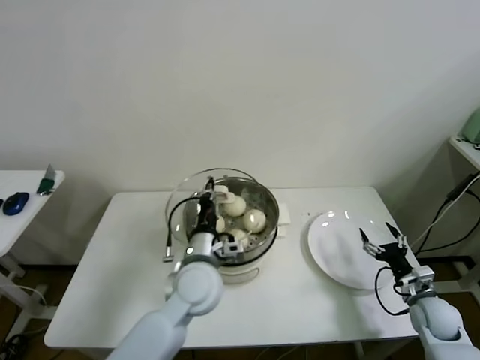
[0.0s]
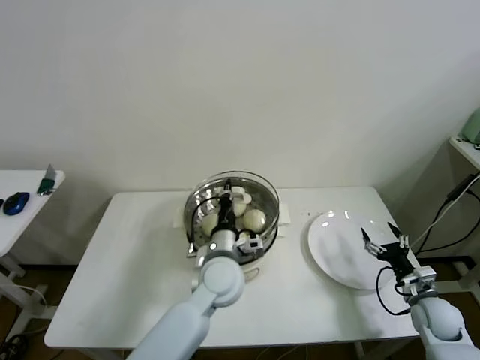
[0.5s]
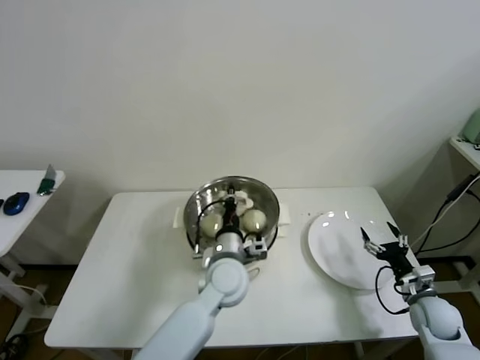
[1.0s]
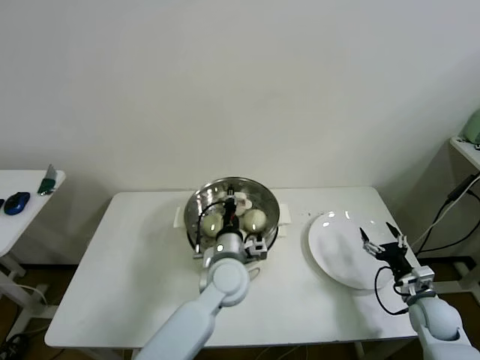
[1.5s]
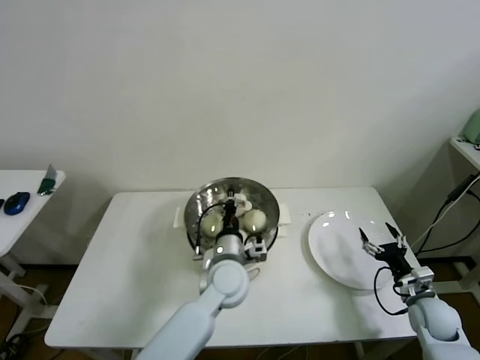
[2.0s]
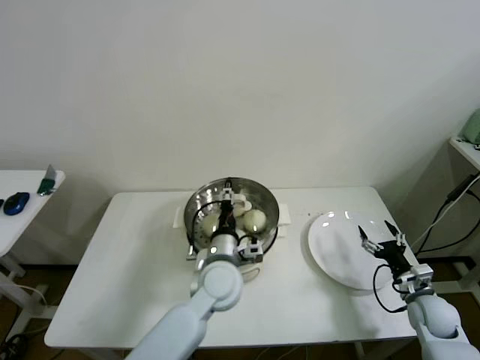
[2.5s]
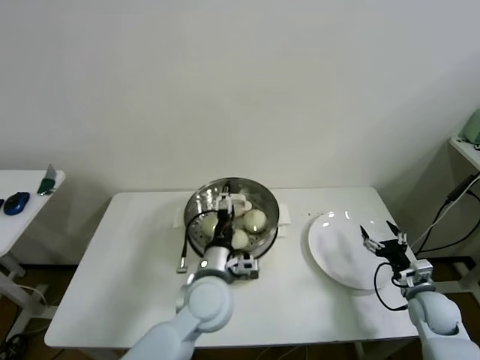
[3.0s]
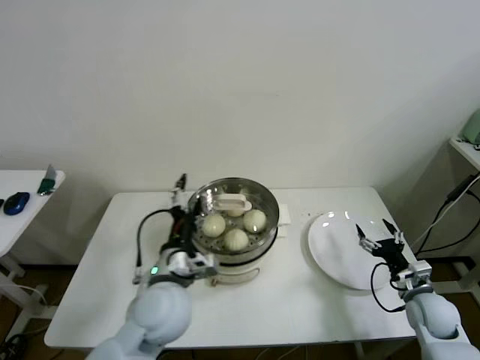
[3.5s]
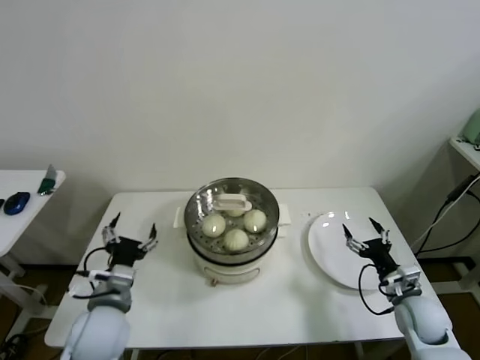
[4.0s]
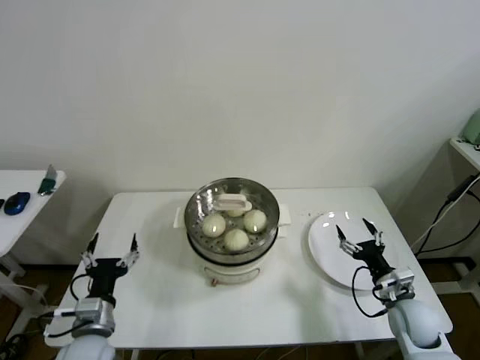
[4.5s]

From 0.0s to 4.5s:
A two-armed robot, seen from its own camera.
Step, from 0.0s to 2.0s: Place the pot lid on the steamer with left gripper.
From 0.0s to 2.0s: The left gripper travels to the right and downward by approximately 10 cm.
From 2.0s to 4.5s: The right gripper shifts about 5 cm to the left; the left gripper heads to the left and backward, covering some 30 cm, and opens its fingers.

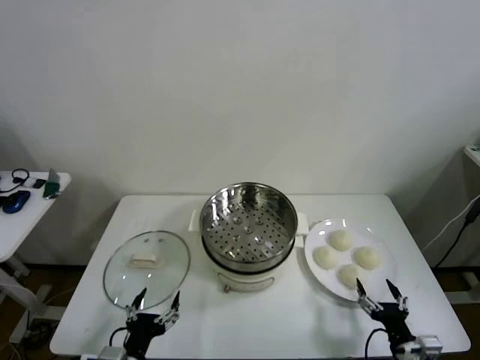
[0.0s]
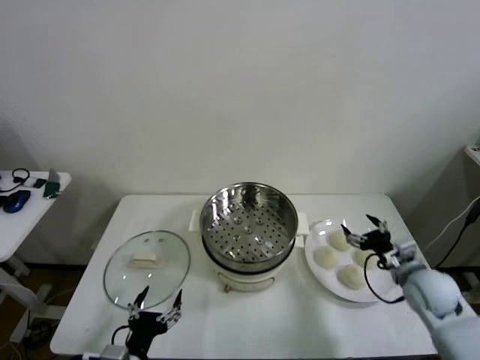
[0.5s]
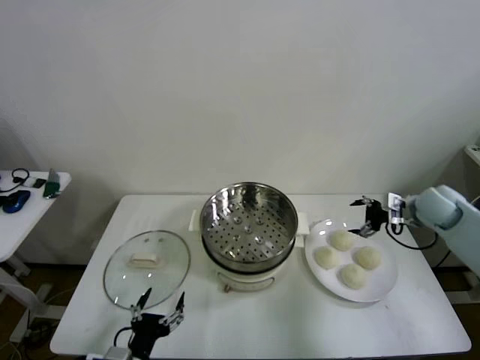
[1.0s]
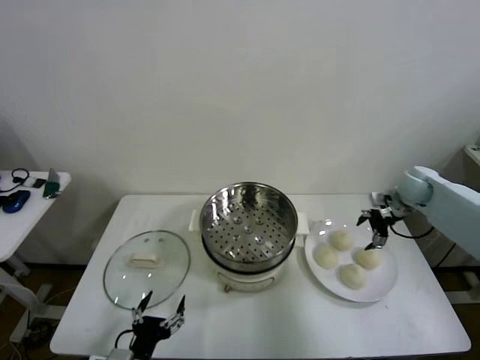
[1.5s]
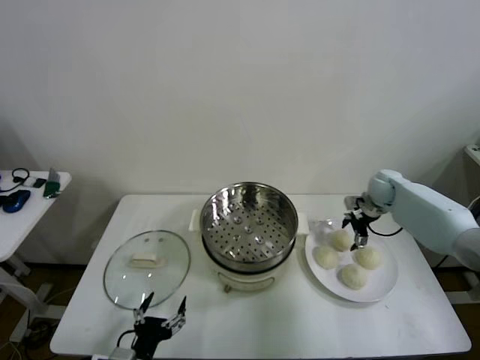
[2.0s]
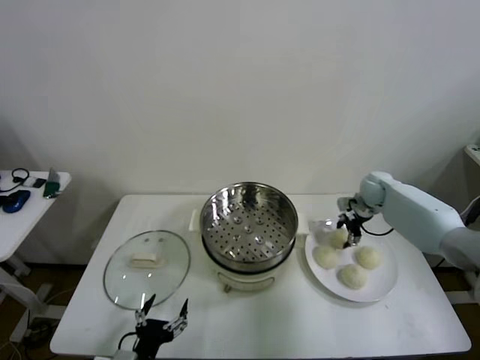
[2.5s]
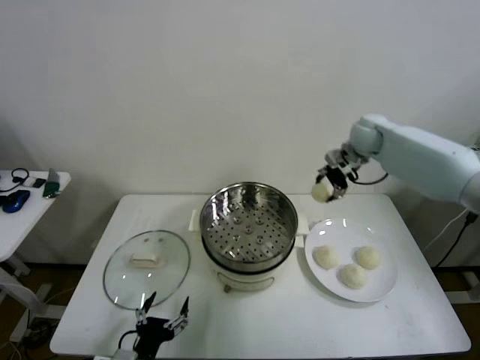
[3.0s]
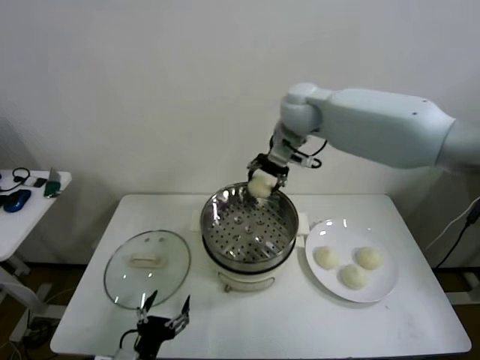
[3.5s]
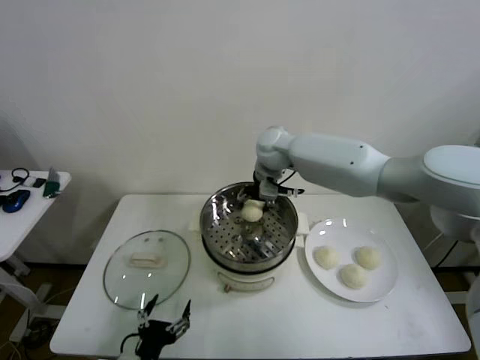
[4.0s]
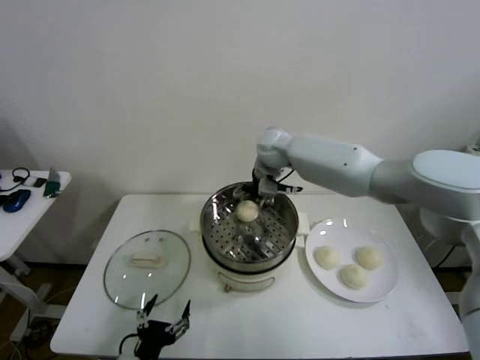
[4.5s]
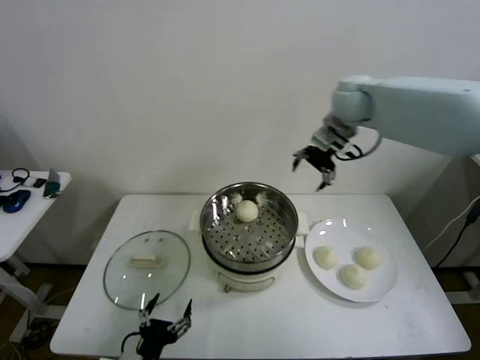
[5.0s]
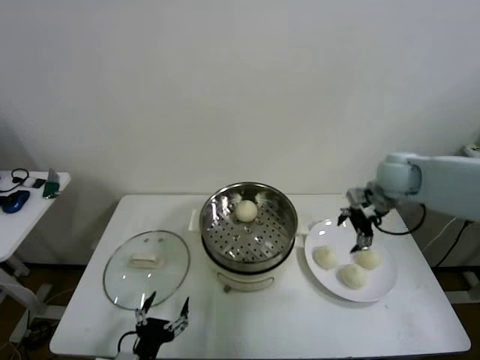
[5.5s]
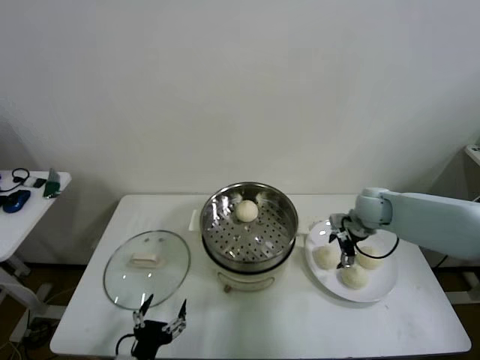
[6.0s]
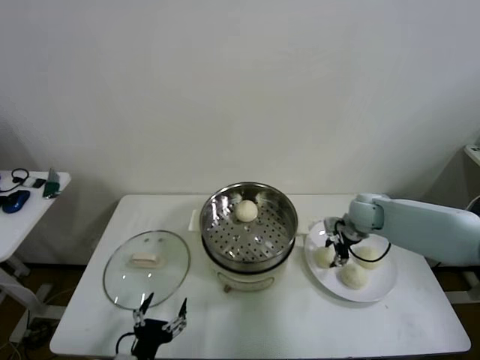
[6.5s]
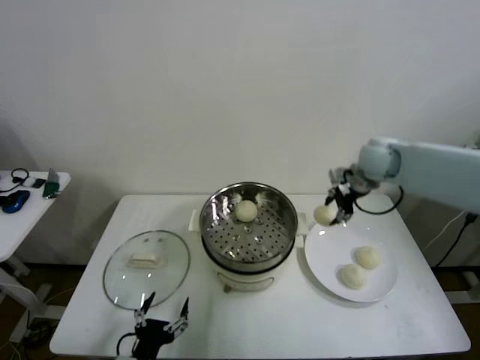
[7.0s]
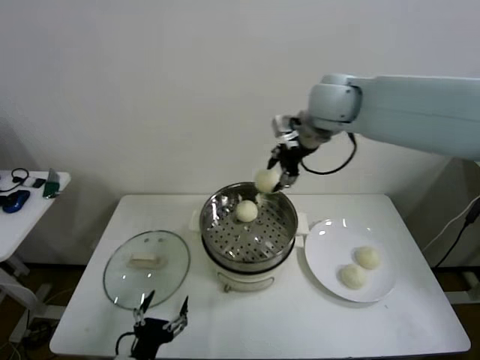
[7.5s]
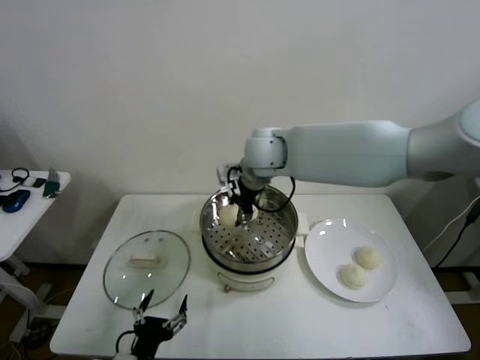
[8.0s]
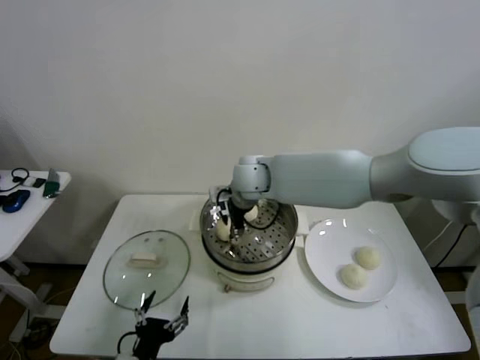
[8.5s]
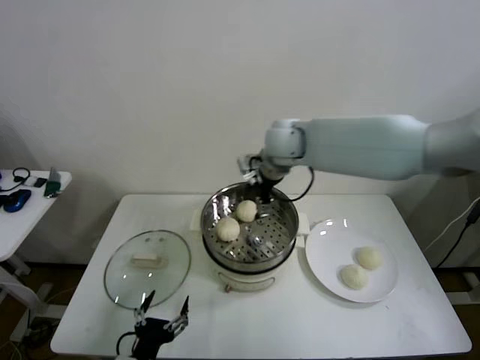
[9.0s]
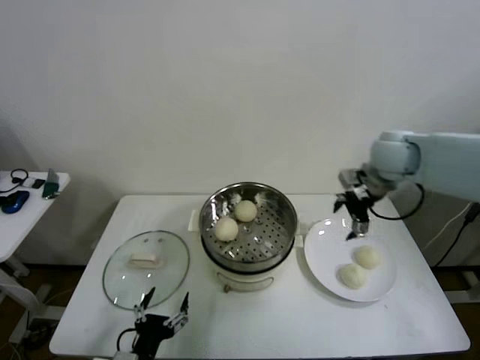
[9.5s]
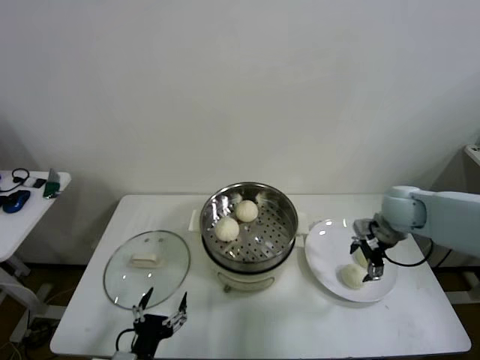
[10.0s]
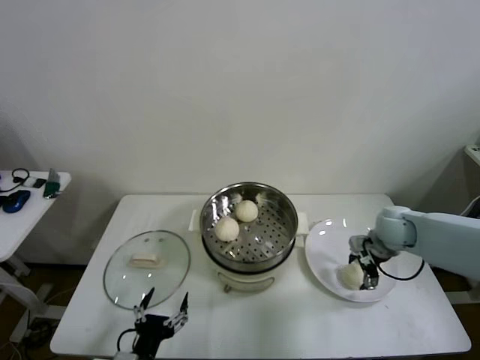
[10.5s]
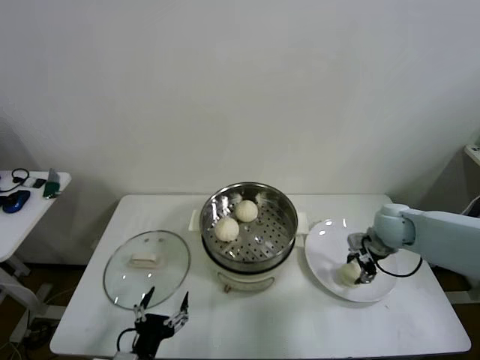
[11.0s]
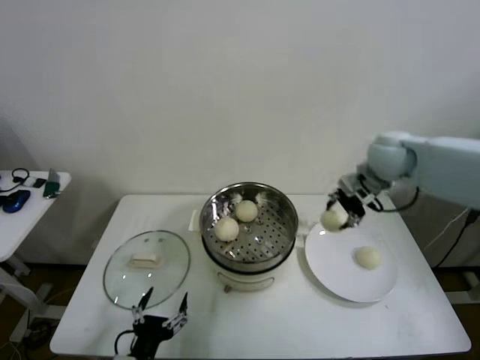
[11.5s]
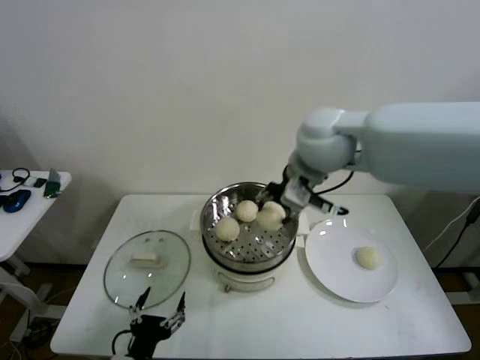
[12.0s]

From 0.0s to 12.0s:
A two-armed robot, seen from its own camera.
Step, from 0.0s to 2.0s: Grasp the baozi in the plate with right gripper.
Step, from 2.5s to 4.0s: Place the baozi on the steamer with right gripper.
Step, from 4.5s to 6.0s: Grasp the baozi in the plate with right gripper.
Step, from 6.5s to 8.5s: Place the baozi on the steamer with right gripper.
Step, from 9.0s to 10.5s: Grasp the baozi in the plate with right gripper.
From 2.0s to 4.0s: The right gripper shifts some 35 cm to the left and upward, and closes up.
From 4.0s to 6.0s: The right gripper moves to the right and downward, roughly 30 cm, and opens.
From 6.0s to 8.0s: The right gripper heads to the left and upward, covering some 35 cm, and closes up.
From 8.0s to 10.0s: The right gripper travels to the right by roughly 30 cm, and opens.
From 10.0s to 12.0s: The right gripper heads to the left and upward, covering approximately 30 cm, and closes up.

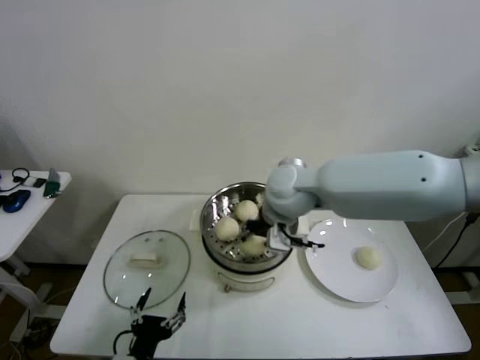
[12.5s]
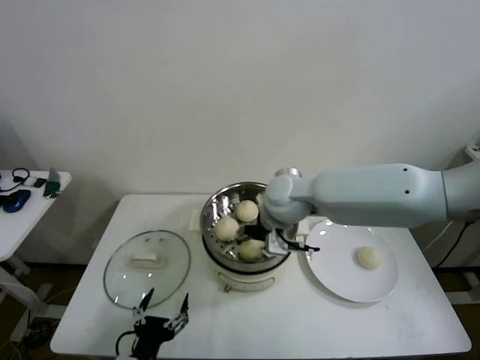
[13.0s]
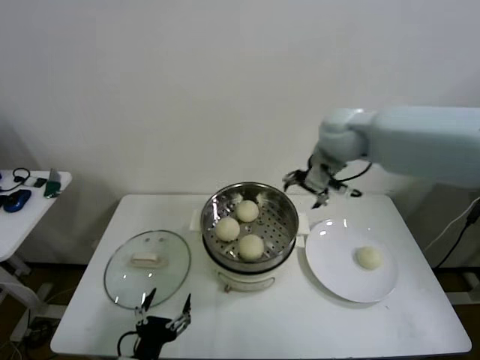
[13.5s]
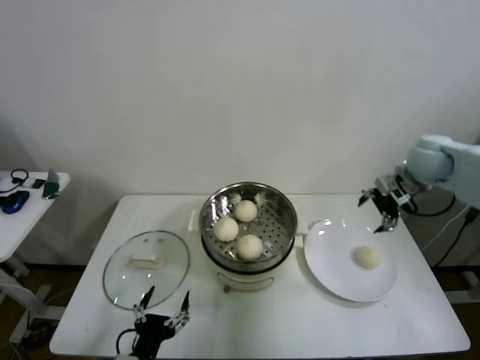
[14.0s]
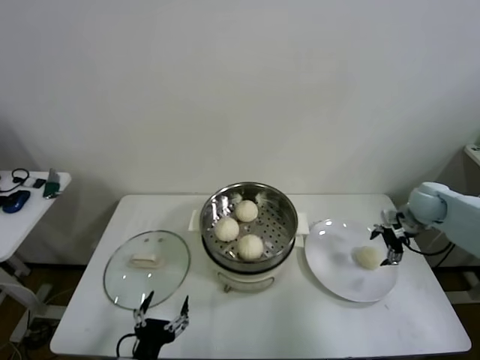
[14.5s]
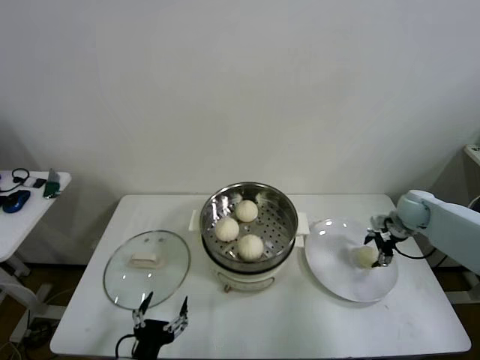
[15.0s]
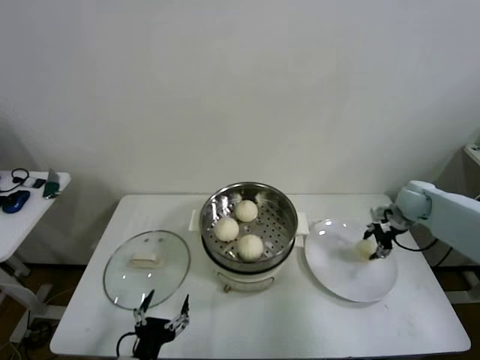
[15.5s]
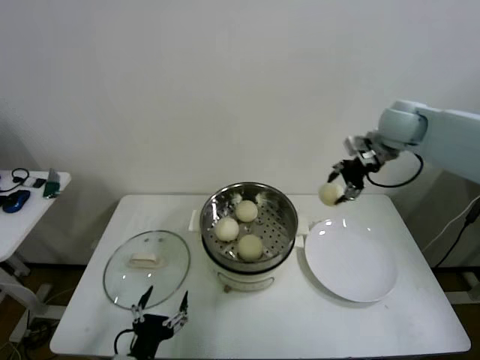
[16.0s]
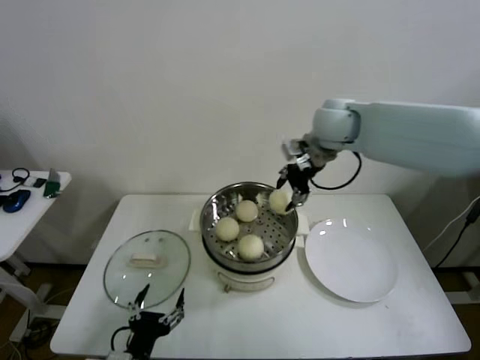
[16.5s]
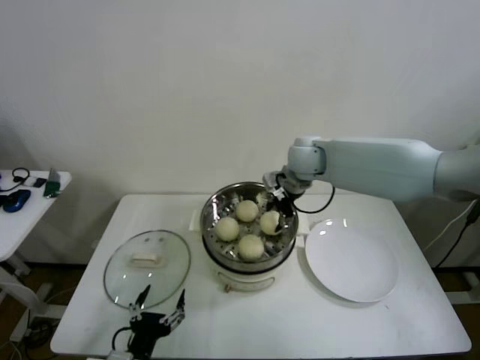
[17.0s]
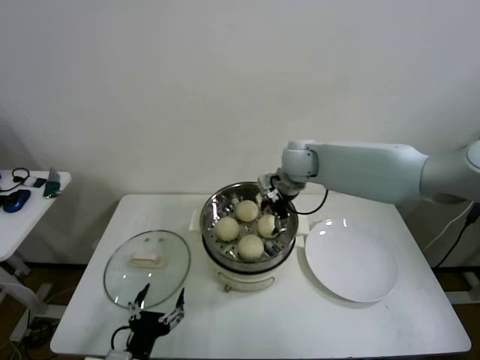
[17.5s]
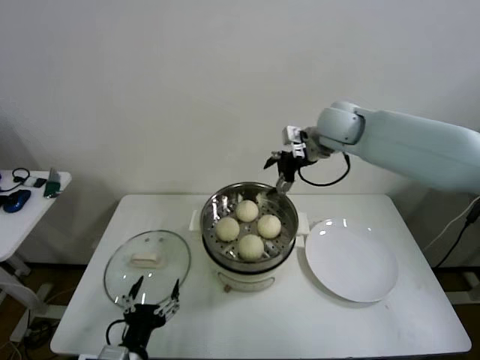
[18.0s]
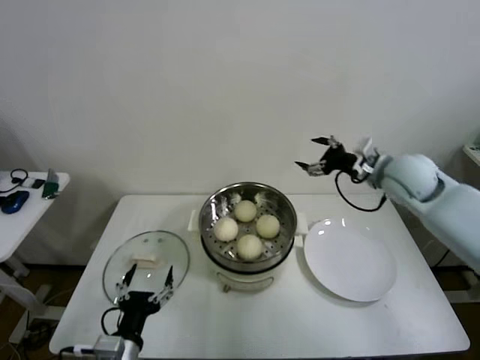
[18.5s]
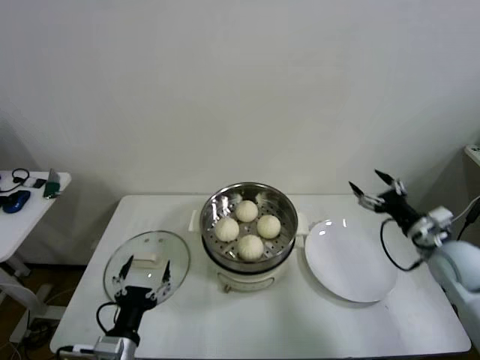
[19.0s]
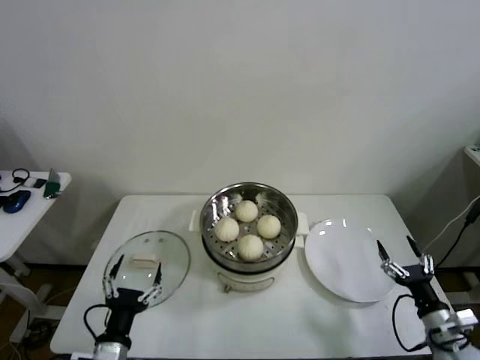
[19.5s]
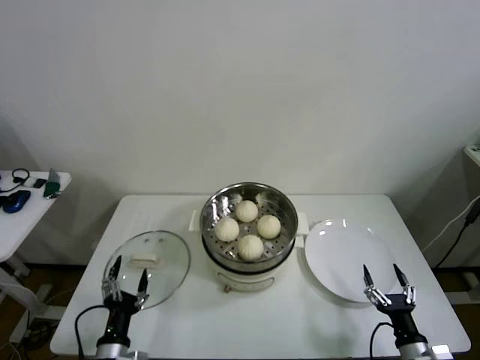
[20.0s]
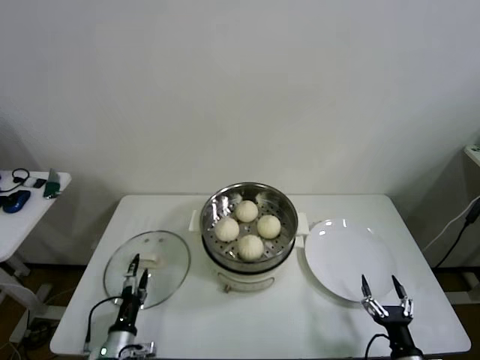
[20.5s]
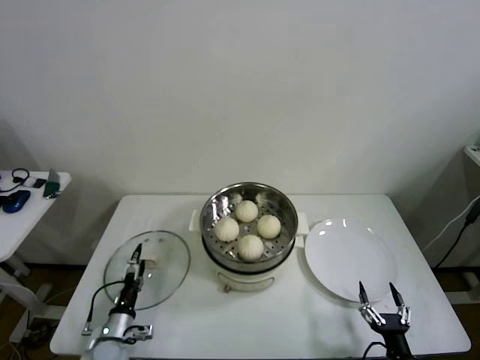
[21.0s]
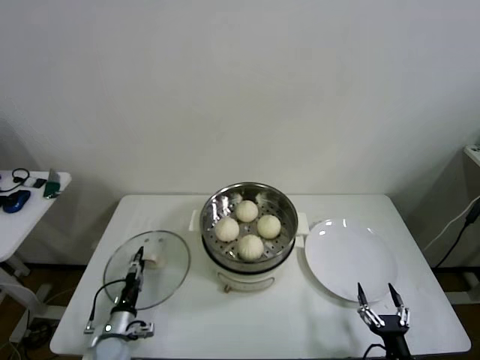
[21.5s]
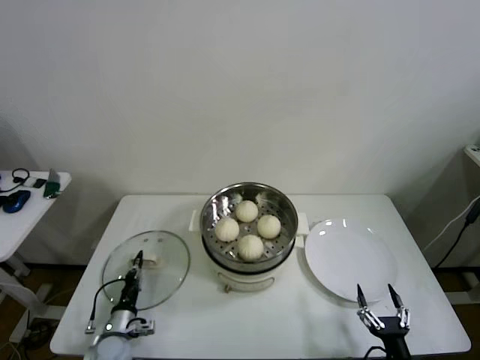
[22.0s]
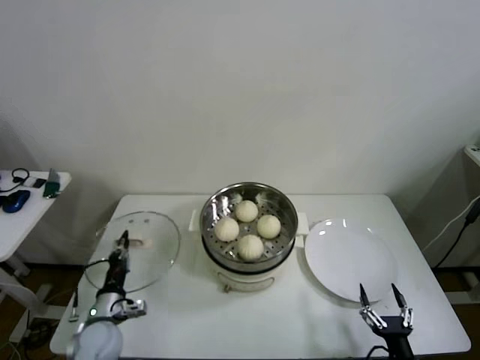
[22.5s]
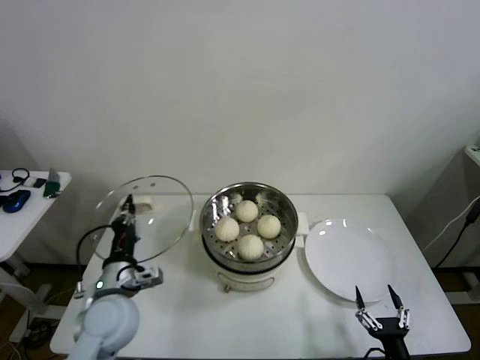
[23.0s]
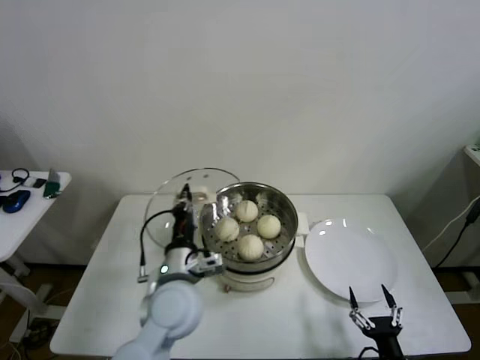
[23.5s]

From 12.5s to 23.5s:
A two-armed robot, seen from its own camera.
Step, from 13.5s to 15.0s: Grasp the baozi in the plate with right gripper.
Step, from 15.5s to 17.0s: Place the baozi on the steamer with right gripper.
Step, from 17.5s to 22.0s: Grasp the pot lid with left gripper.
From 12.5s to 14.5s: The right gripper goes some 35 cm to the right, and opens.
From 14.5s to 16.0s: The right gripper shifts approximately 25 cm upward and to the left, and closes up.
From 16.0s to 18.0s: The right gripper goes approximately 10 cm to the left, and opens its fingers.
From 18.0s to 20.0s: The right gripper is displaced downward, backward and to the right by some 60 cm. The left gripper heads downward, covering approximately 5 cm.
From 20.0s to 21.5s: The right gripper ends up about 5 cm from where it was, while the left gripper is displaced downward, forward and to the left by approximately 15 cm, and closes.
From 21.5s to 23.5s: The left gripper shifts some 30 cm upward and to the right, and closes up.
